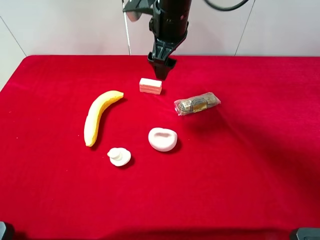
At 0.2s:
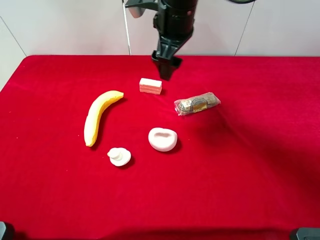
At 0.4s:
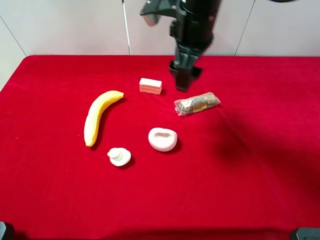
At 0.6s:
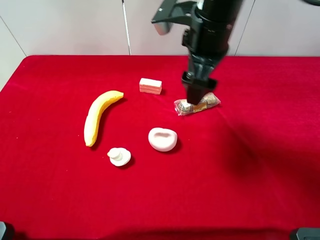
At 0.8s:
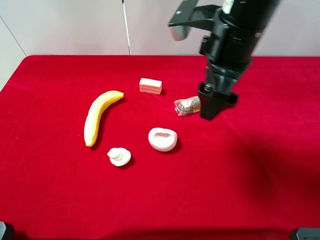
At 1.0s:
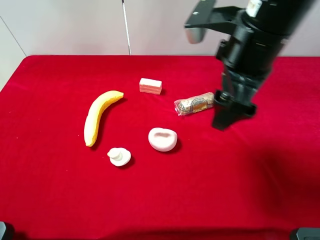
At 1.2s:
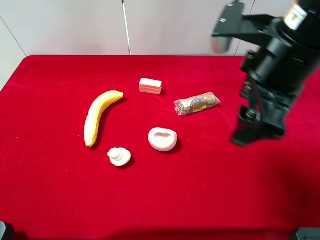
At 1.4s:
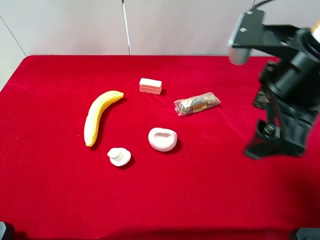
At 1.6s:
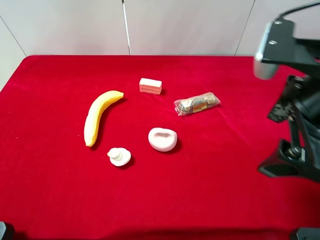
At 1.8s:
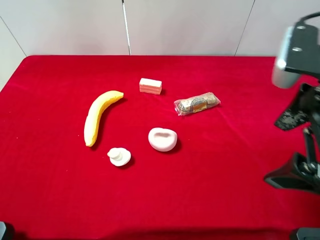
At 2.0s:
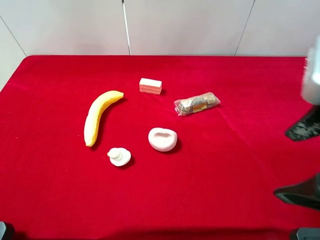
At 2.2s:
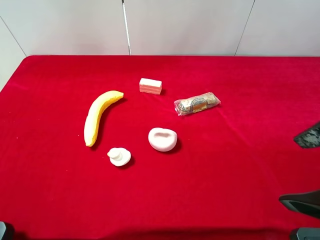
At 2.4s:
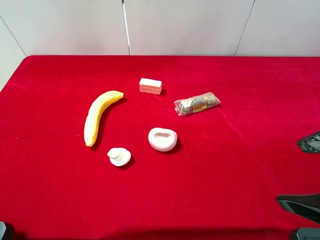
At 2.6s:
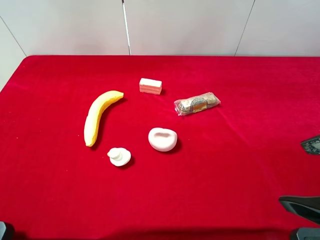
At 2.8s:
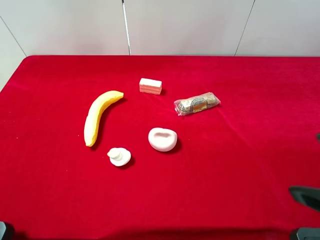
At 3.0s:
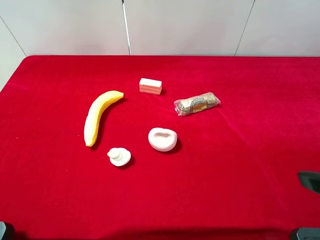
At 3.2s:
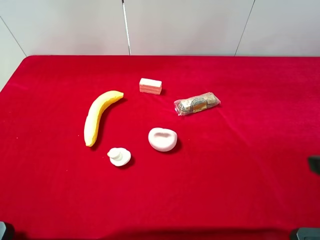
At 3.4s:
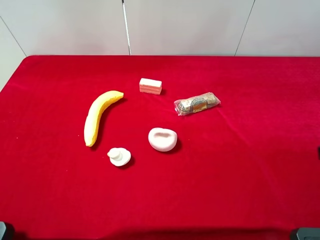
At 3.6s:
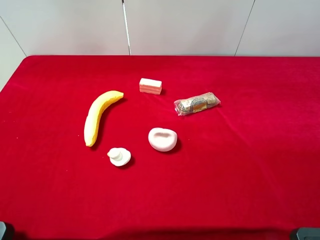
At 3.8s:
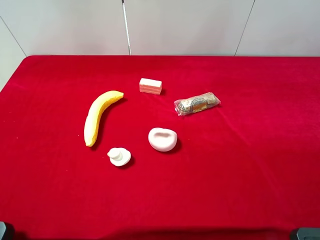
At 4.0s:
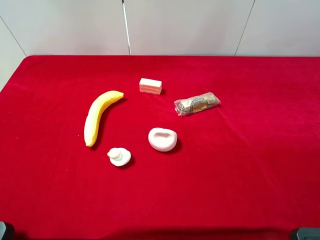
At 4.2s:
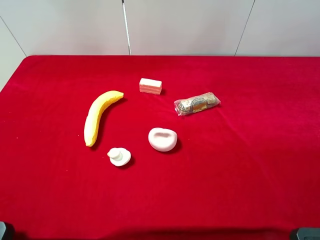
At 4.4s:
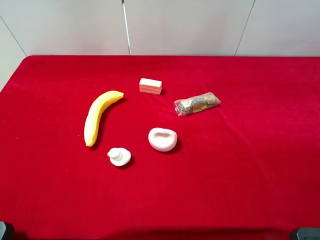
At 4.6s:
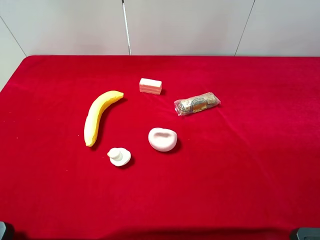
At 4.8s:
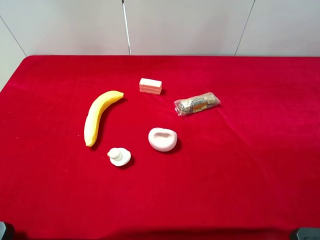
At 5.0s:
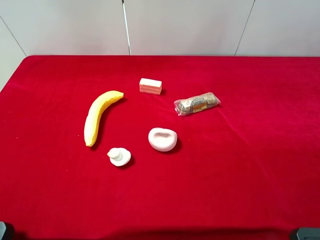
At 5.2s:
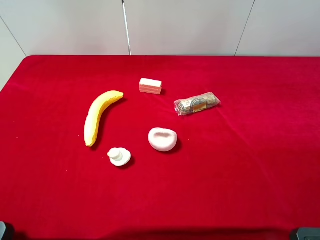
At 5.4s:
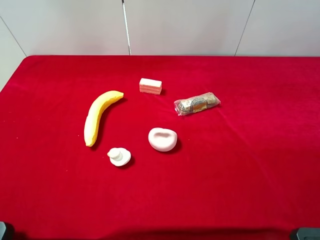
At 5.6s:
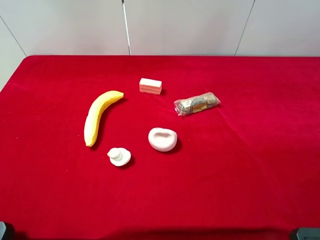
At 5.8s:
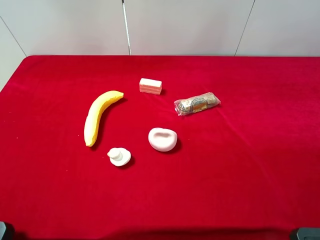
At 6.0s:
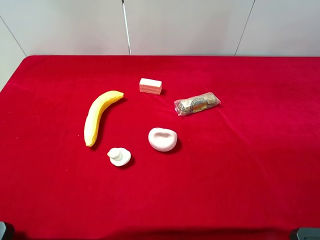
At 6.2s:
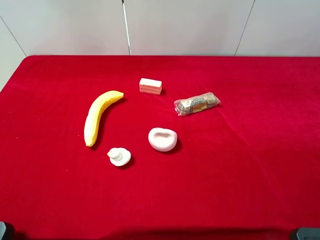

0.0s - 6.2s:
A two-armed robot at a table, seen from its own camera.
Task of the whole recording: the gripper move the object.
0.0s - 1.6s: The right gripper is displaced backward and to the right by roughly 30 cm.
1.6s - 3.2s: The right gripper travels to the right and backward by roughly 10 cm.
4.6s - 6.2s: Both grippers stay about where they are.

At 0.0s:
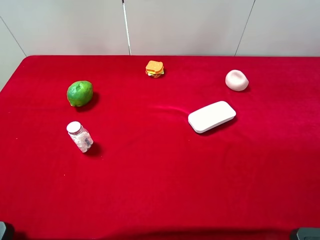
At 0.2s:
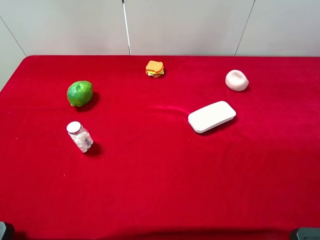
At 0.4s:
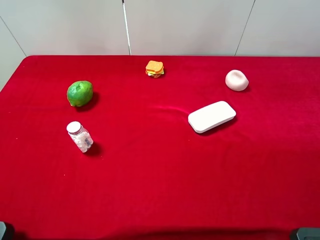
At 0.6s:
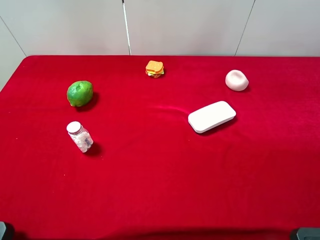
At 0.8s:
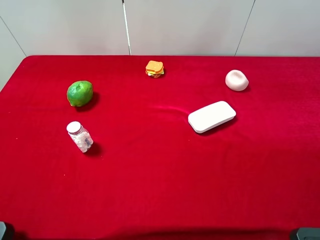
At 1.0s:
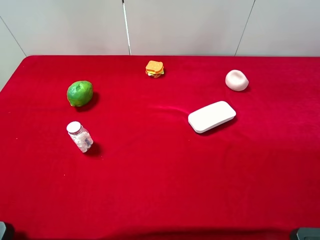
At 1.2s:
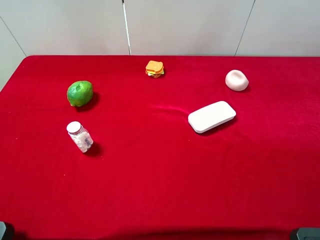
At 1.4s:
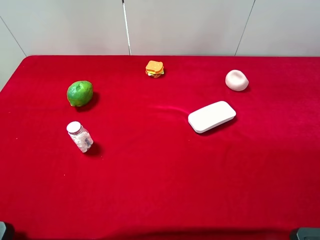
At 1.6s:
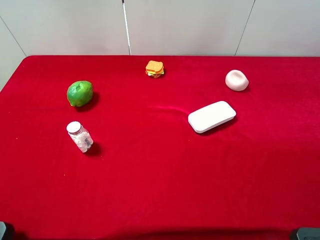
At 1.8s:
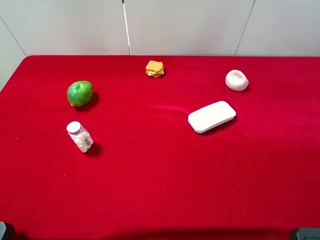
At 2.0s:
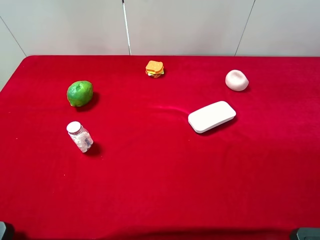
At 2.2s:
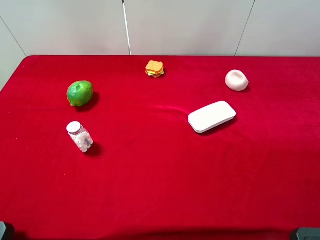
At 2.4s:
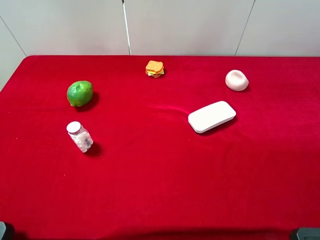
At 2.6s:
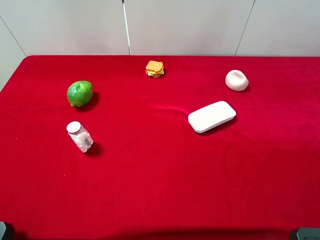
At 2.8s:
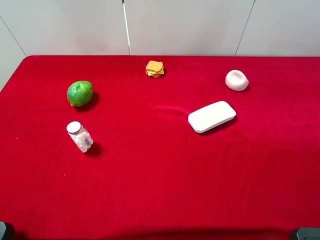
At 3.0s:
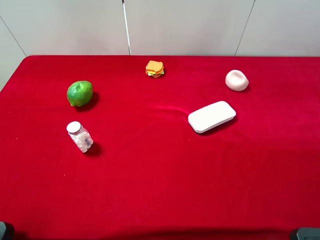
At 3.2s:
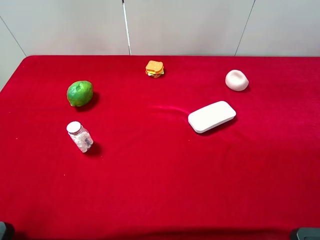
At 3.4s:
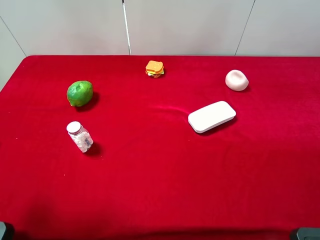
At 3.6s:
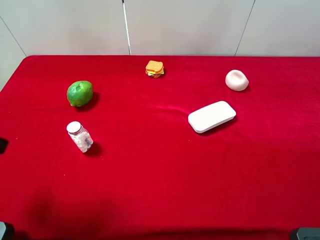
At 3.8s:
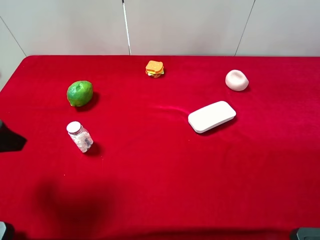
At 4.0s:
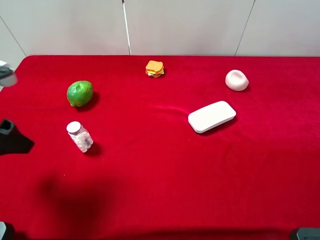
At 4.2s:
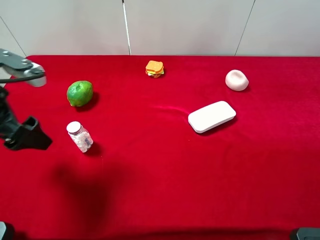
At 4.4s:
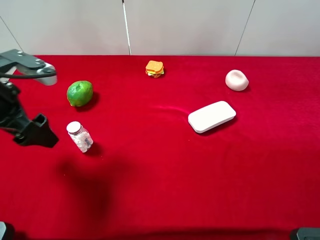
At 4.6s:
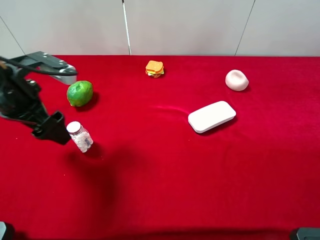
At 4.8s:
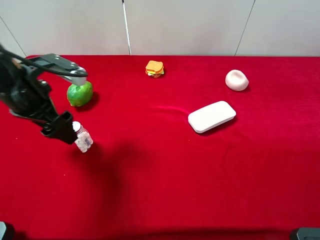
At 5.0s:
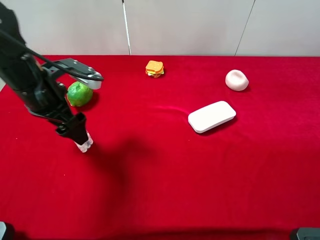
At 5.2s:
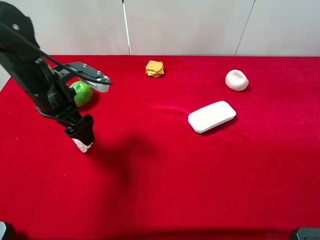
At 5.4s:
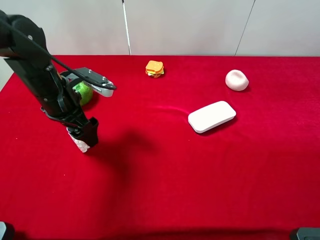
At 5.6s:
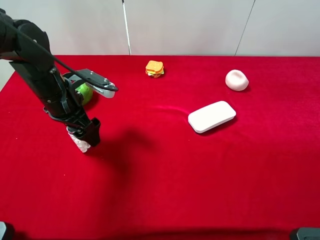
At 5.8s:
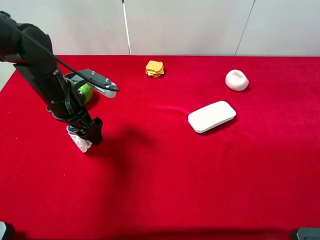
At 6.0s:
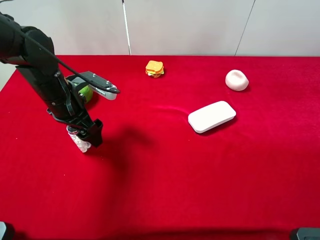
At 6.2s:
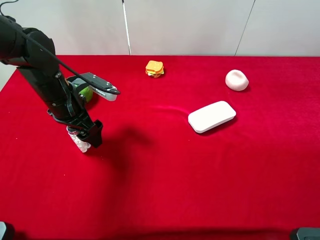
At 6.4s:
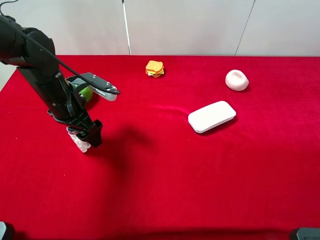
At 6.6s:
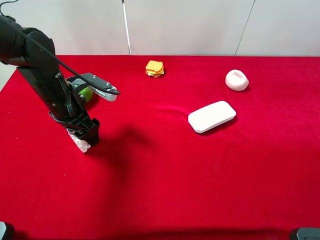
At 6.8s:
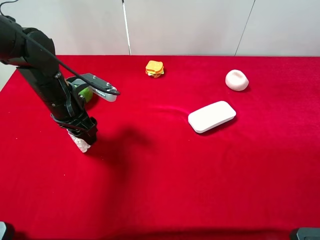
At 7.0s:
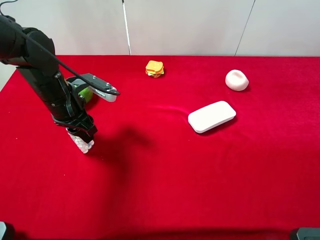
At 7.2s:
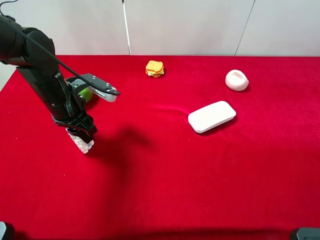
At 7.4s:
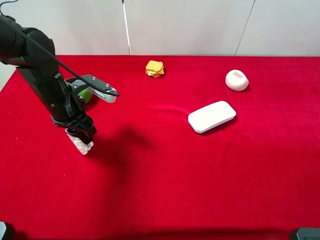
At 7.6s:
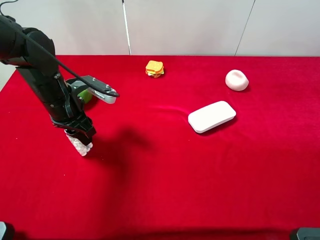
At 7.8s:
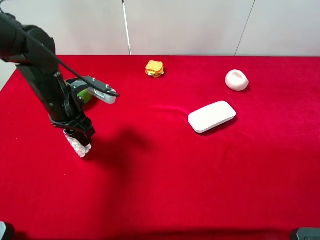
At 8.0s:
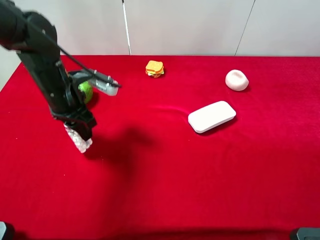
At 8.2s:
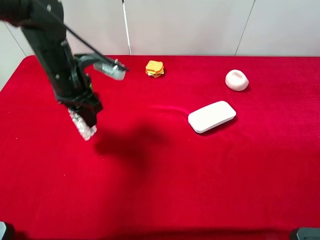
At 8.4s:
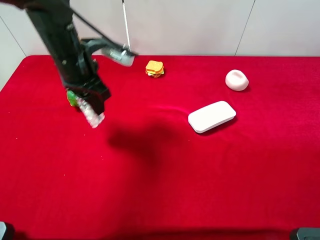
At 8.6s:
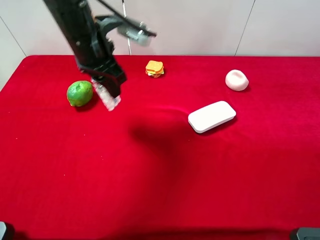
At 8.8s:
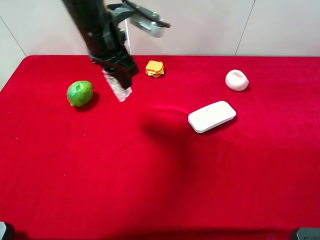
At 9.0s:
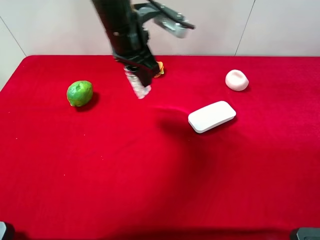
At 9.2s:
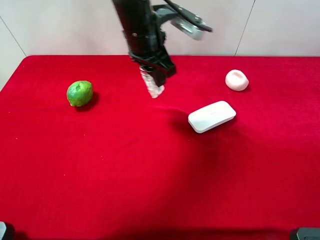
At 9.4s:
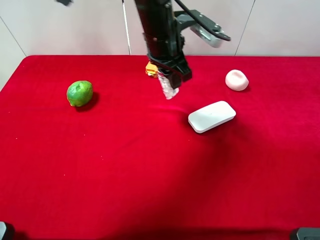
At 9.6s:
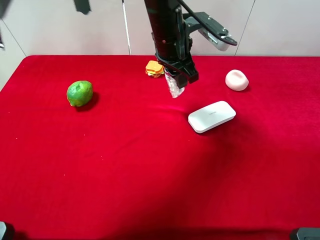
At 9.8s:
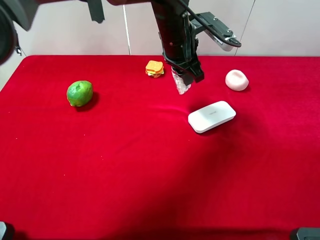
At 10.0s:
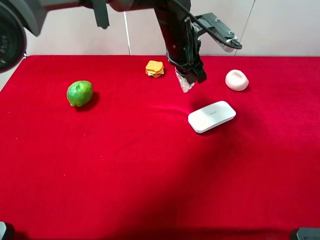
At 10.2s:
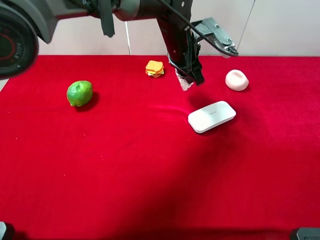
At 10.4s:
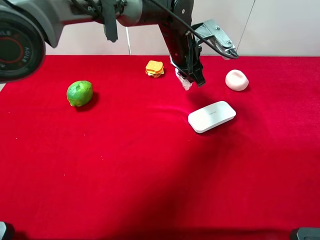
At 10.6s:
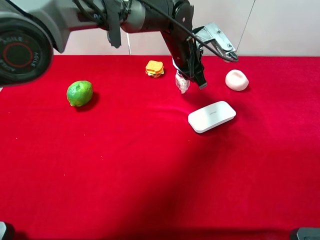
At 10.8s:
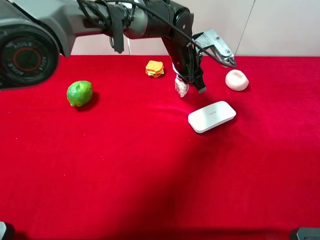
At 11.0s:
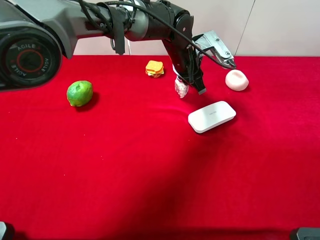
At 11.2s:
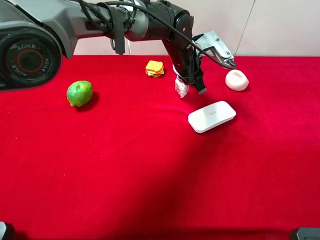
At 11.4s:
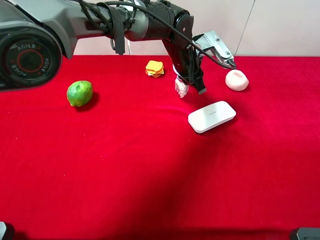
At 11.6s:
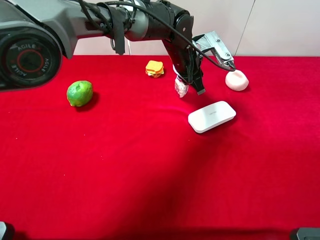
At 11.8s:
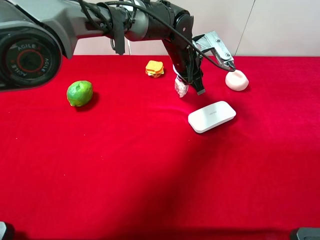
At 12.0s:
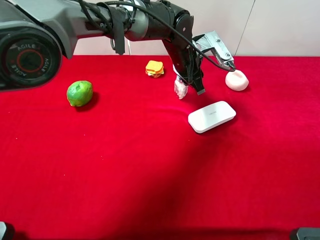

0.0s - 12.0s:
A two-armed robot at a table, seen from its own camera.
Task of the whole recording: the gripper move the object.
Step, 0.0s - 7.2s: Grasp the mint candy with the left gripper.
0.0s - 1.6s: Neither gripper changes place.
3.0s - 4.4s: The left gripper travels forward and downward by roughly 20 cm.
4.4s - 6.0s: The left gripper is displaced downward, forward and to the right by about 15 cm.
6.0s - 7.6s: The left gripper closes up.
7.6s - 9.0s: The left gripper is displaced to the right, upward and forward by roughly 20 cm.
9.0s - 10.4s: The left gripper goes approximately 15 cm to the right, downward and forward.
10.4s - 12.0s: There are only small adjustments of the grippers.

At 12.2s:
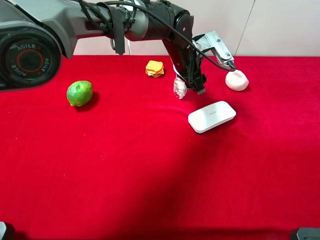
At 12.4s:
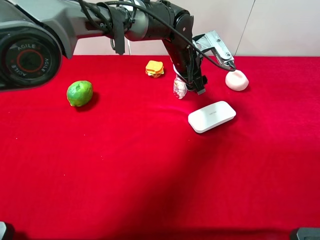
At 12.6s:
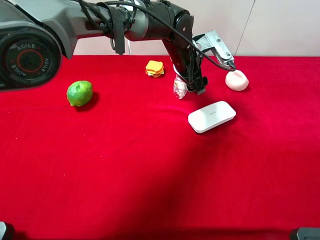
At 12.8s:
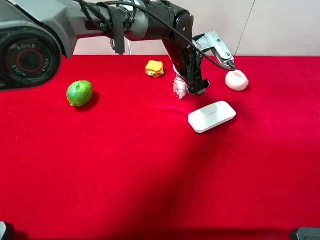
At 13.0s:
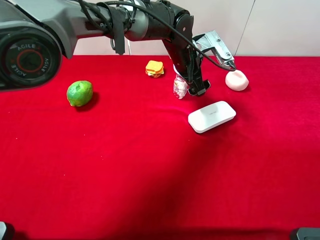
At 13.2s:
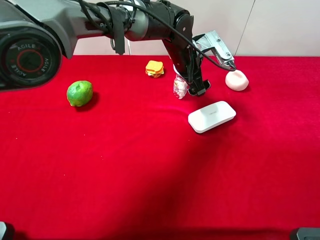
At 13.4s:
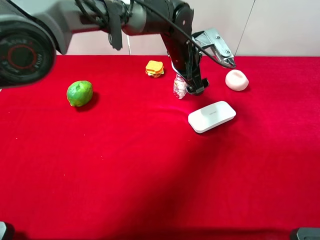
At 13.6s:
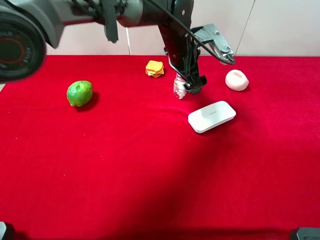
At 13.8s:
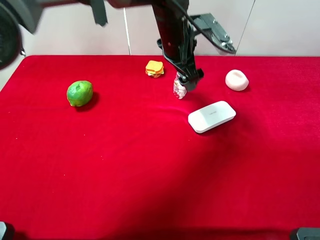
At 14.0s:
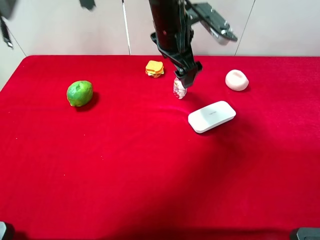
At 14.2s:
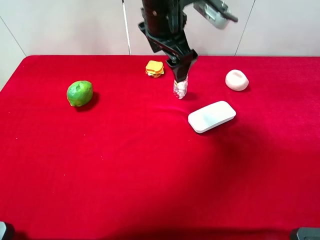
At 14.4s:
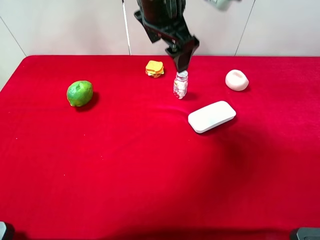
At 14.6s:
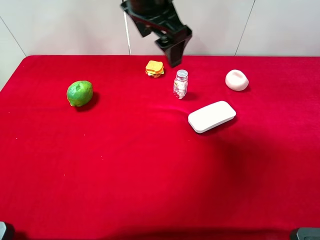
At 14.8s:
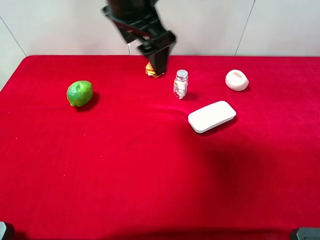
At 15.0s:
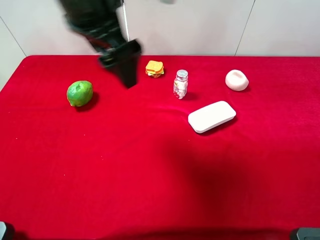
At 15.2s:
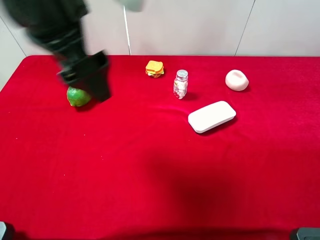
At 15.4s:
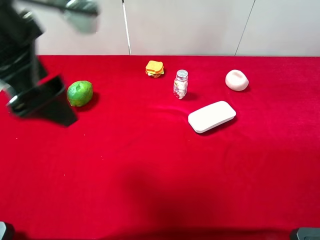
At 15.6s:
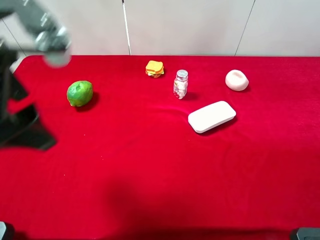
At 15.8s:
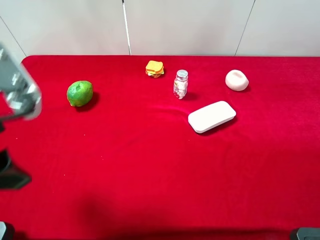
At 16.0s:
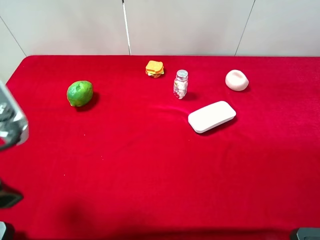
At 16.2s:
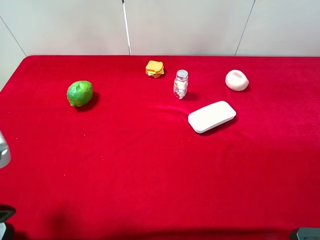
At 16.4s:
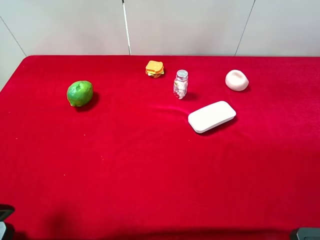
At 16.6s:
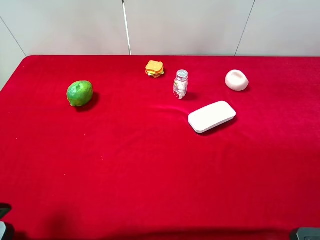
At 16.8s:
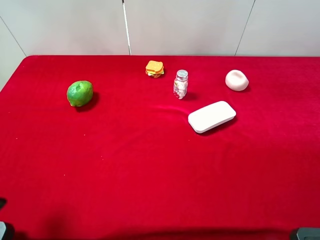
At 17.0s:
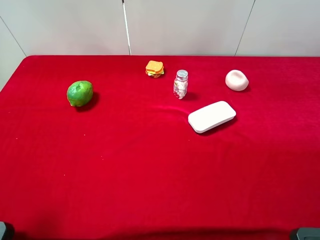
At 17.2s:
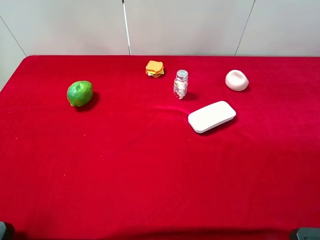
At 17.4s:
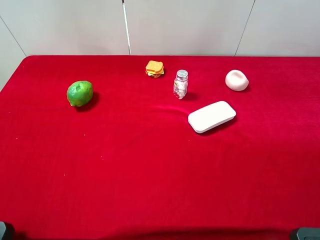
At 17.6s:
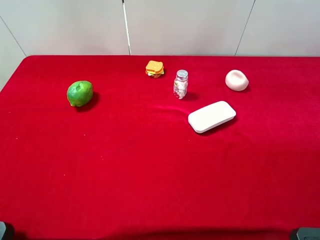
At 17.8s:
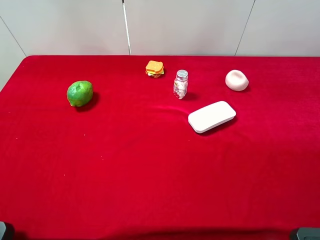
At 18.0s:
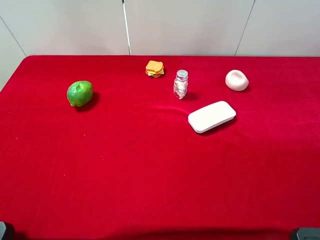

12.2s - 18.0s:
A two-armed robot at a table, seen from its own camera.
Task of the whole recording: the gripper move the object.
Step, 12.2s - 14.2s: Place the mint candy on the table with the left gripper.
12.2s - 13.6s: The left gripper opens.
13.6s - 15.0s: The left gripper shifts some 25 cm upward, backward and to the left.
15.0s - 16.6s: The left gripper is displaced backward, to the left and downward by roughly 25 cm.
